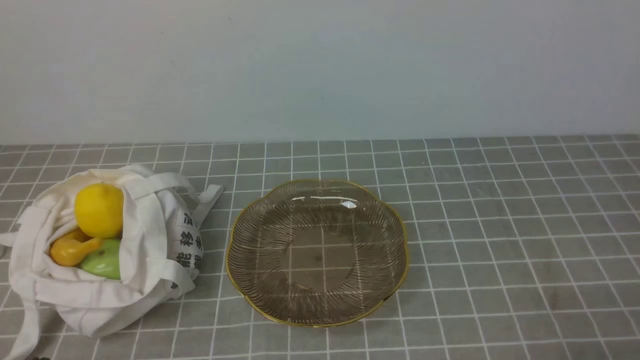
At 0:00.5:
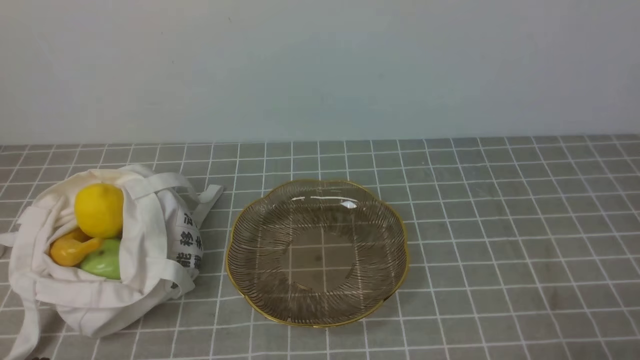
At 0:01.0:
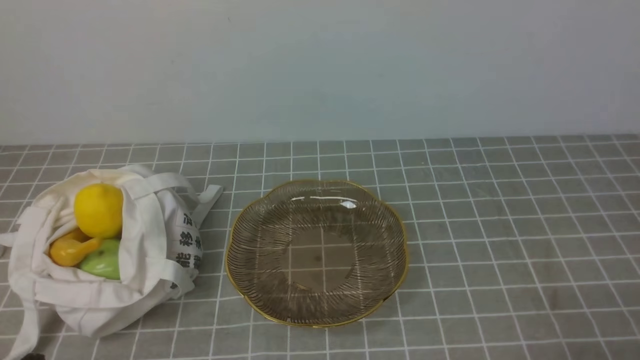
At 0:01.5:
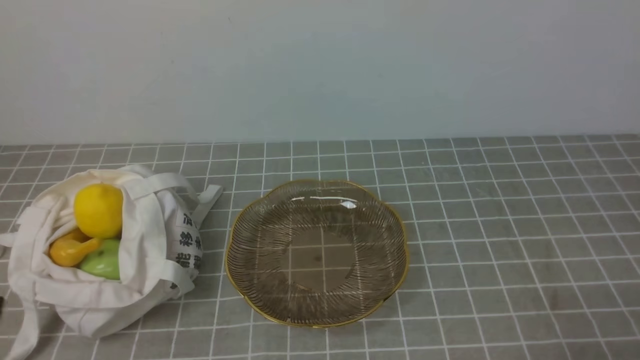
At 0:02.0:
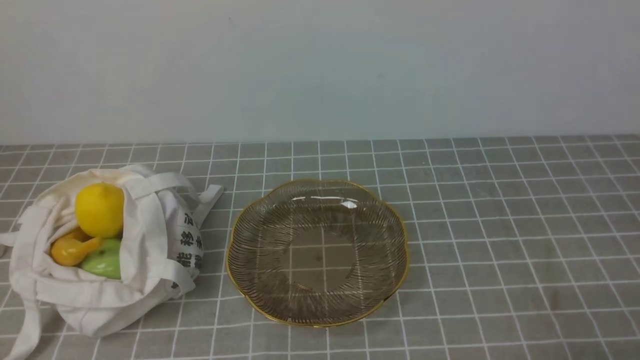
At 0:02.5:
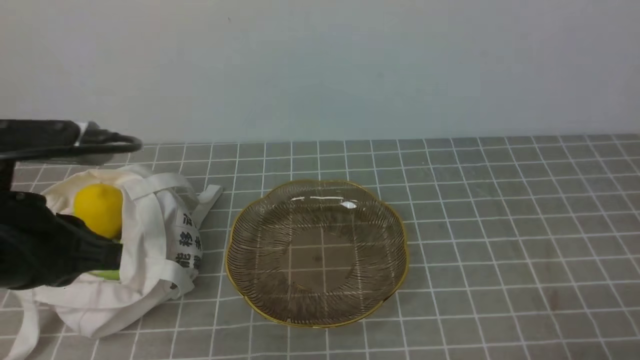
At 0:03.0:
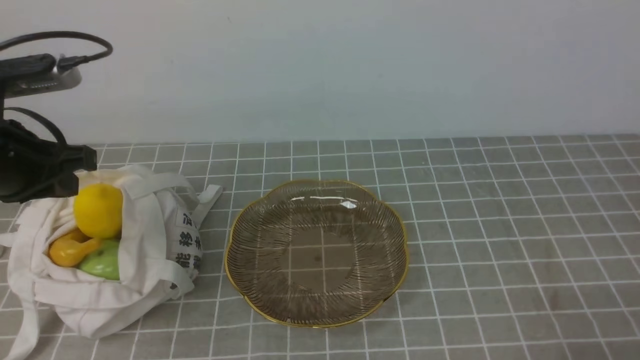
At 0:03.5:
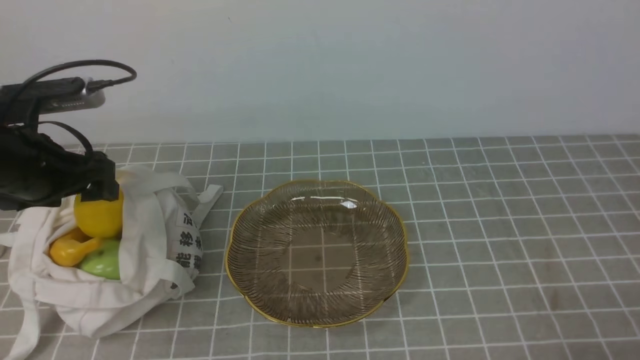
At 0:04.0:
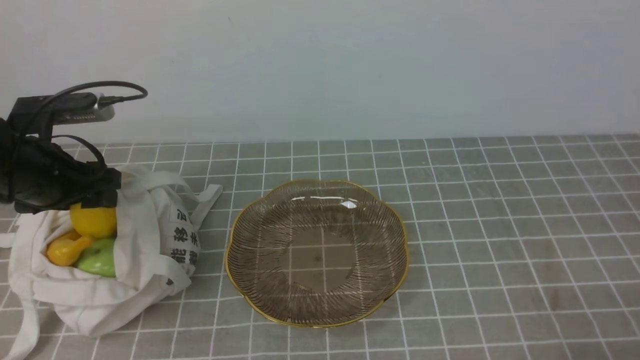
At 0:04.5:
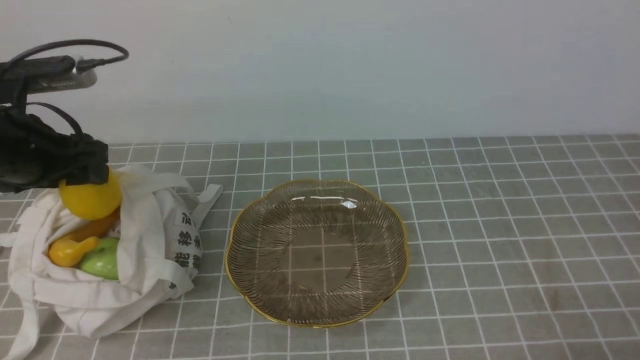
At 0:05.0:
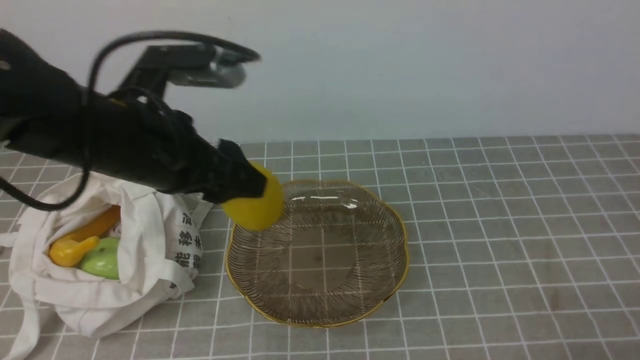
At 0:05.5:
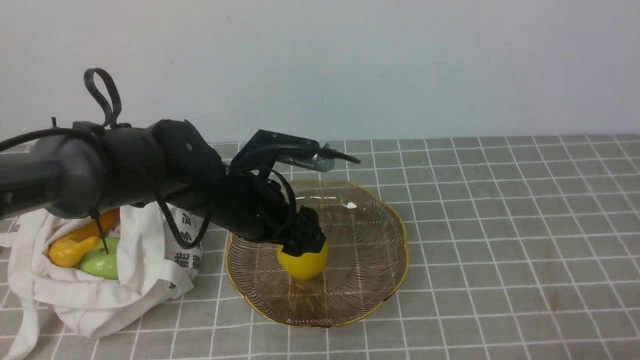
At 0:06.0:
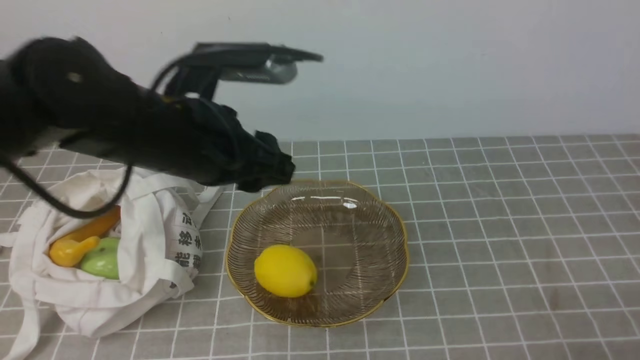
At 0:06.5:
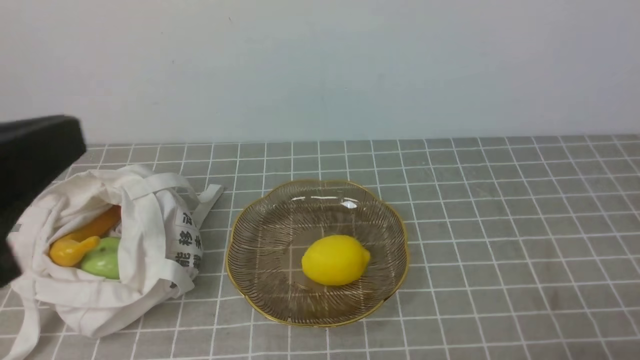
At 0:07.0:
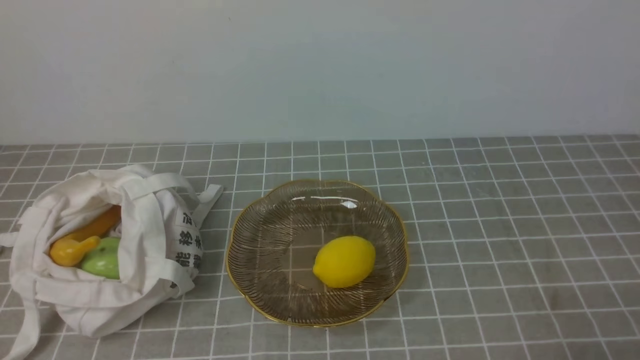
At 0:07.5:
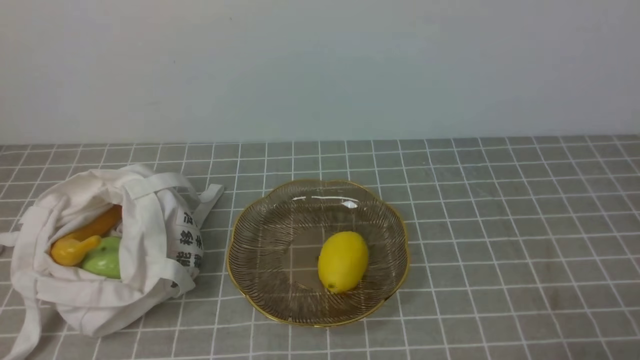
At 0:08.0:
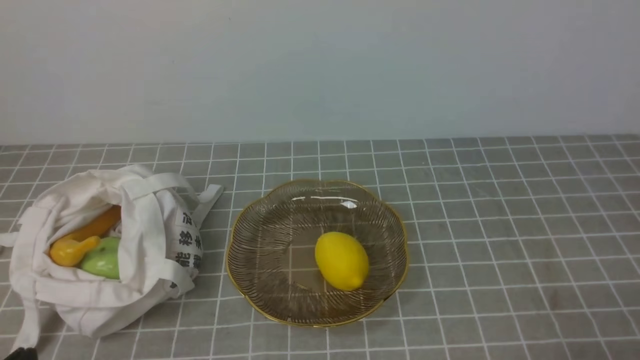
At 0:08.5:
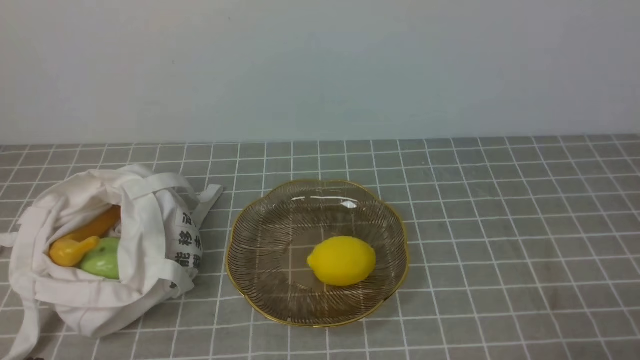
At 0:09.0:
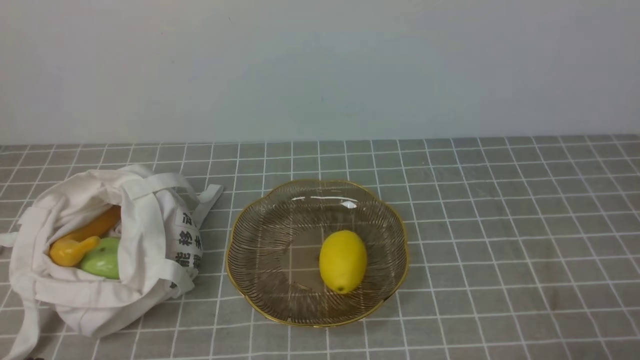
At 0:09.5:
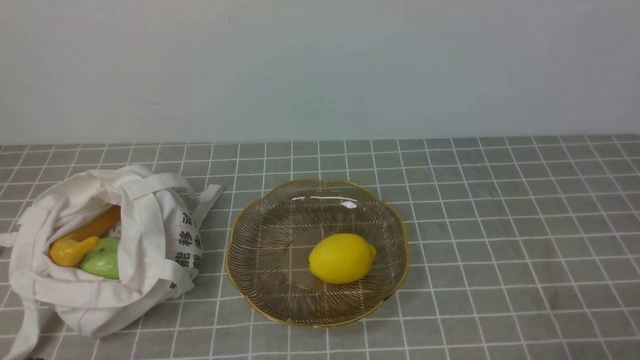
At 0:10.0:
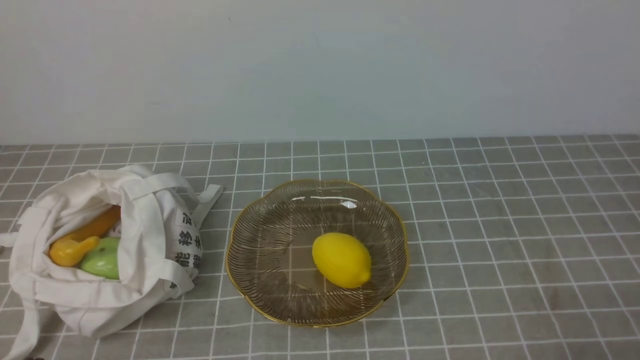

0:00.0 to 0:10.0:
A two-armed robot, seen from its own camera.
Step, 0:00.0 to 0:04.0: use the left arm to grab a lemon from the bag.
Step, 0:04.5 to 0:05.5: use the left arm to put the lemon into the empty plate on the right.
0:02.0 to 0:04.0: The left gripper moves forward, about 30 cm, and opens up.
0:04.0 to 0:06.0: The left gripper travels to the right by some 20 cm.
0:06.0 to 0:08.0: The left gripper is displaced backward and to the left by some 30 cm, and closes.

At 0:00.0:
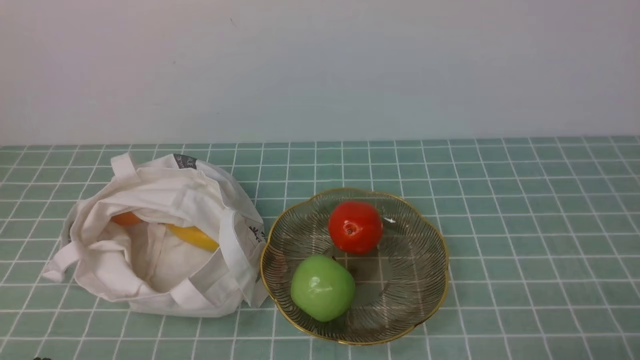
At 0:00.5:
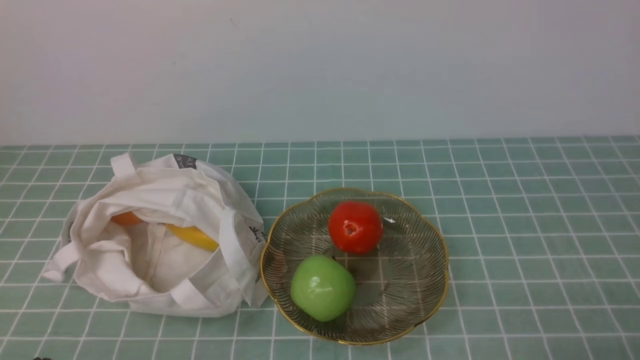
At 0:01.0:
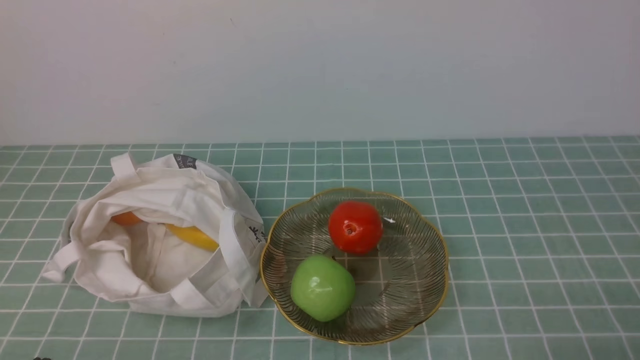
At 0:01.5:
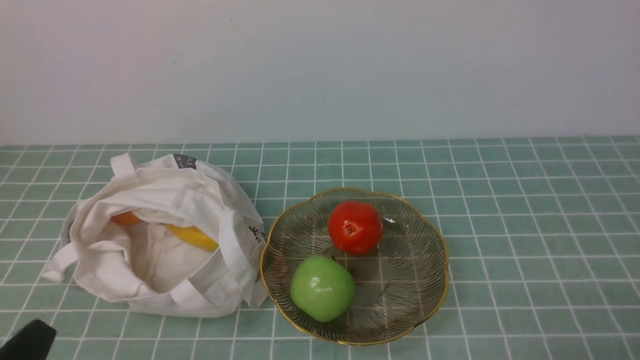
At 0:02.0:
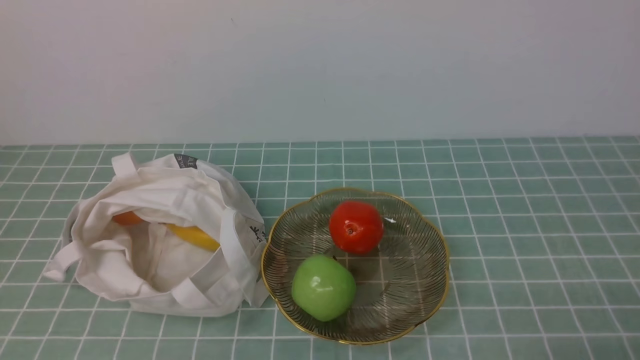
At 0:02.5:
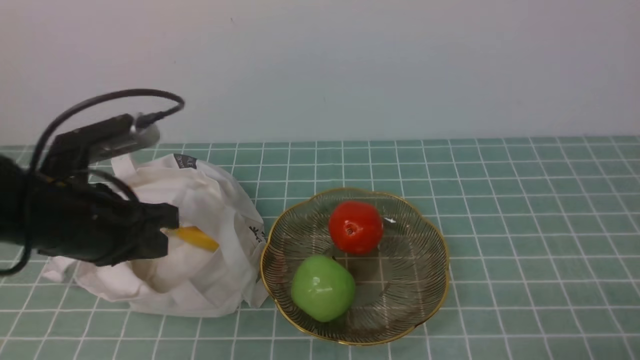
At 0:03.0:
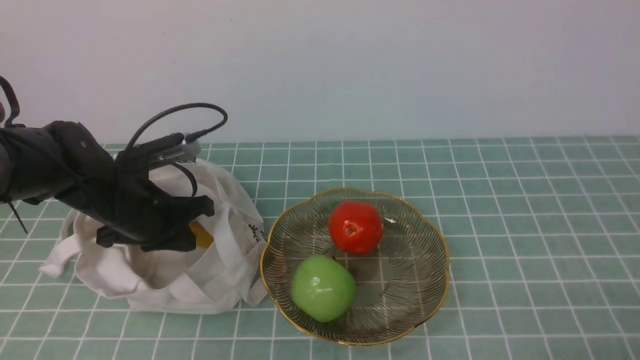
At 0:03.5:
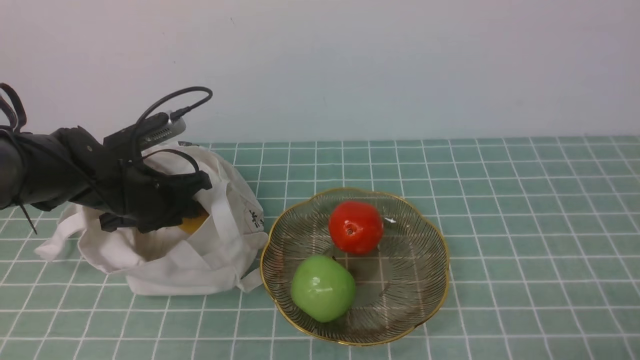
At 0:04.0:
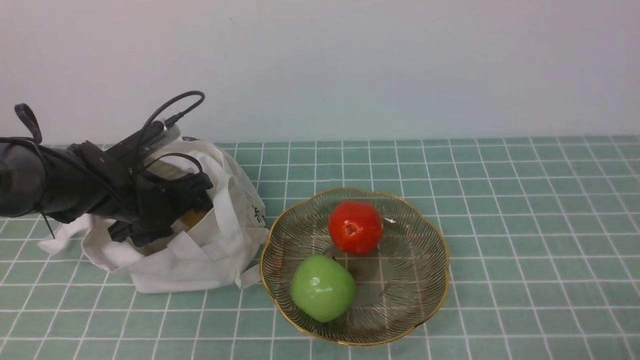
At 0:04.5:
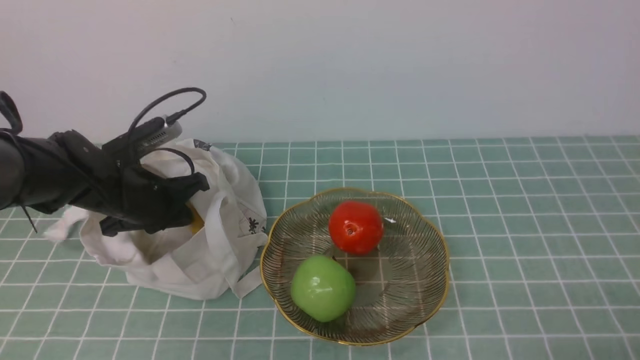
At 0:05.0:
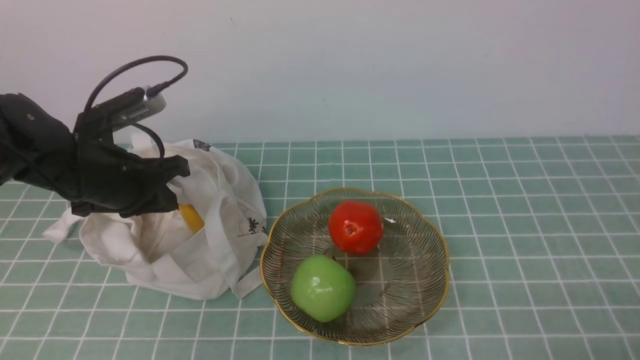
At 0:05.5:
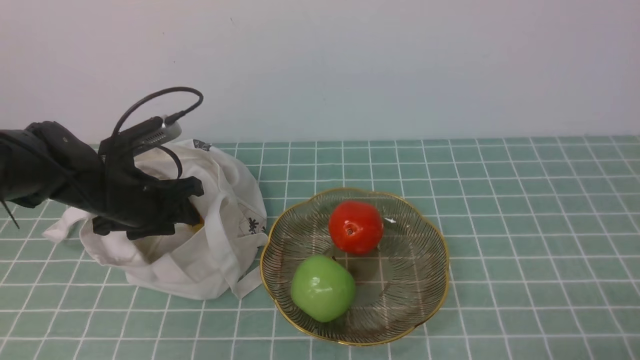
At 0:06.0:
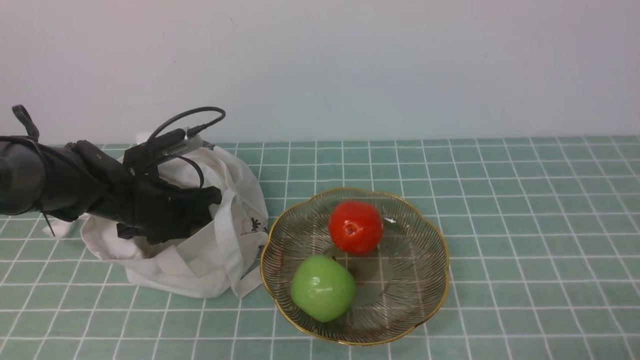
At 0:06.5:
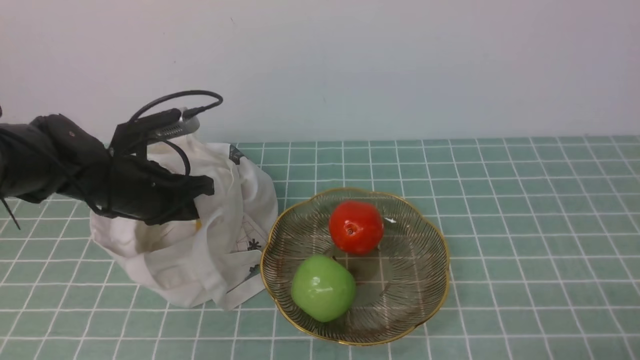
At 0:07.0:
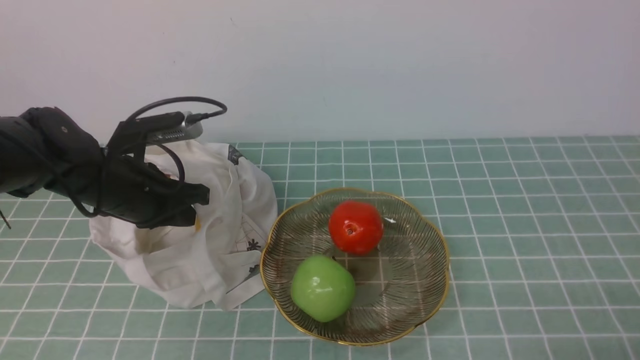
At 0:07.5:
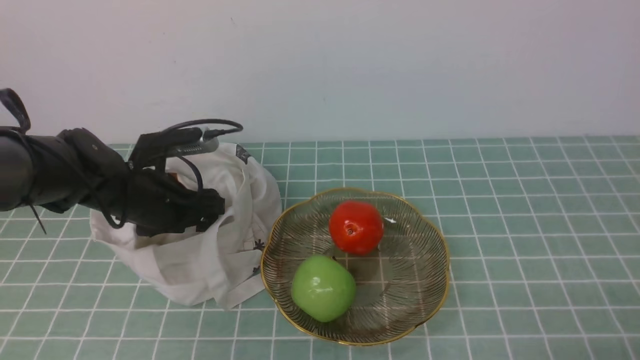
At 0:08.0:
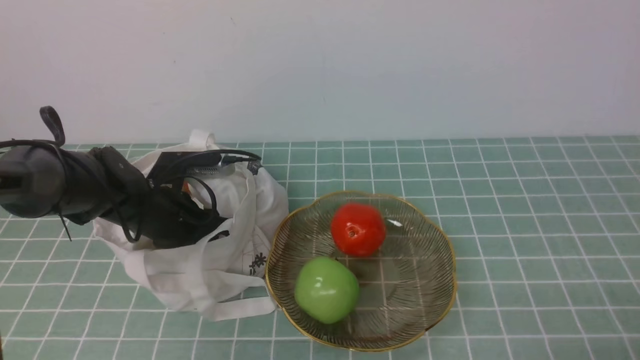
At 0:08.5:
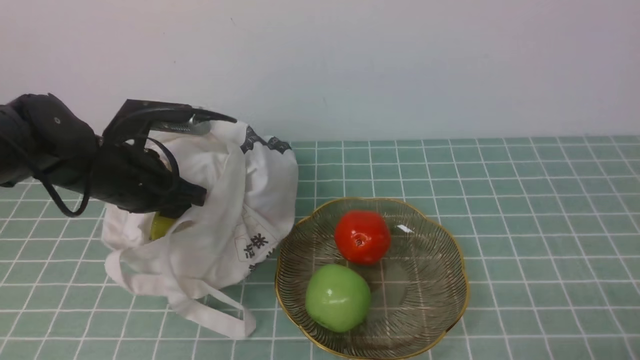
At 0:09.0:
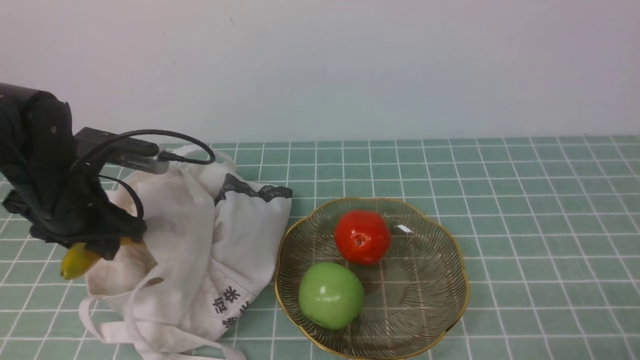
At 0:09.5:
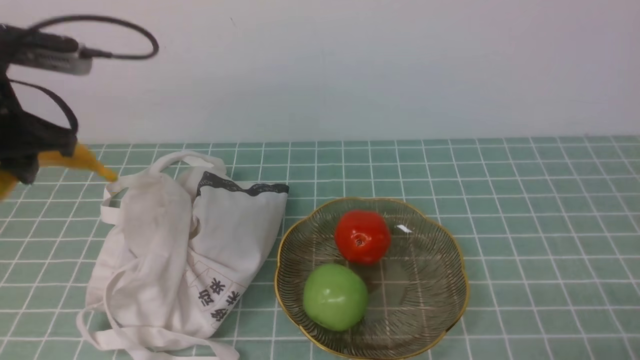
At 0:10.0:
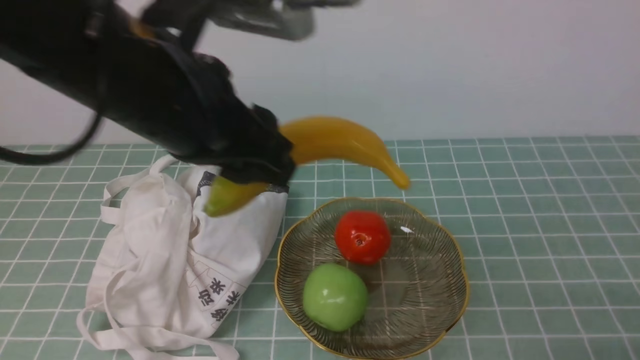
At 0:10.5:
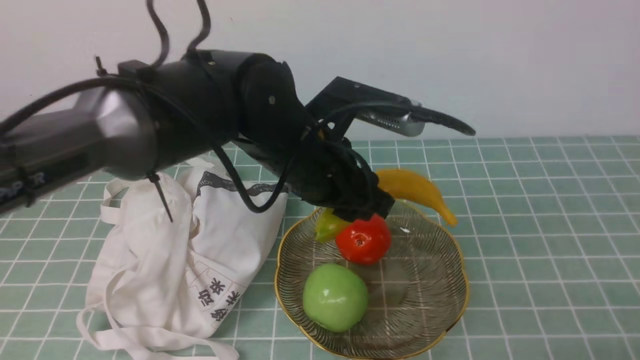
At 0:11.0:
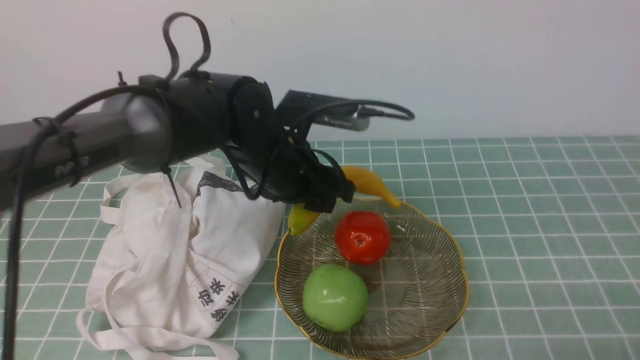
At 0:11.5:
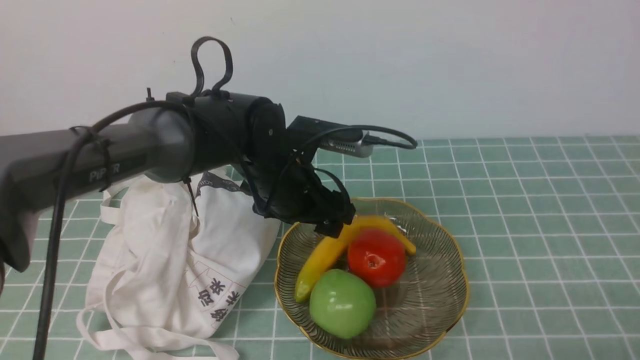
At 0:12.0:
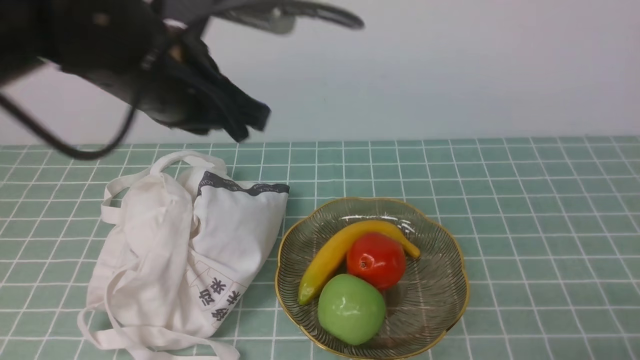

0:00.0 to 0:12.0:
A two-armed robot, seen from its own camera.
Step, 0:00.0 to 0:08.5: use the left arm to grab a banana from the bag.
Step, 0:09.0 to 0:11.5: use the left arm to put the banana into the empty plate on the right.
0:02.0 to 0:04.0: The left gripper travels forward and downward by roughly 35 cm, and opens up.
0:04.0 to 0:06.0: The left gripper closes its fingers.
0:06.0 to 0:08.0: The left gripper closes, then opens again.
0:08.0 to 0:10.0: The left gripper shifts roughly 25 cm upward, backward and to the right.
0:10.0 to 0:12.0: The left gripper reaches some 15 cm downward, then returns, and closes its fingers.
